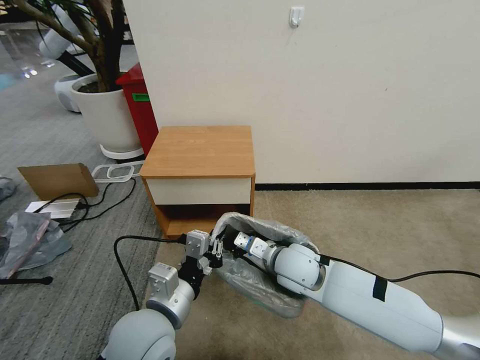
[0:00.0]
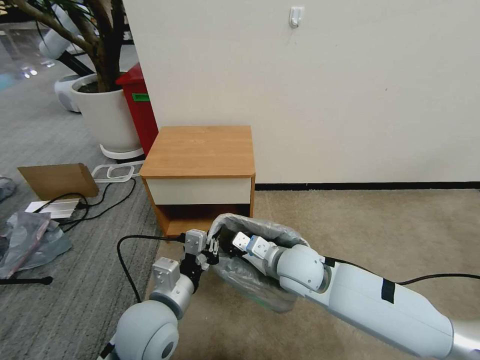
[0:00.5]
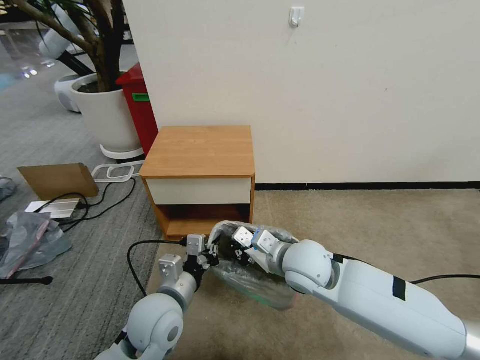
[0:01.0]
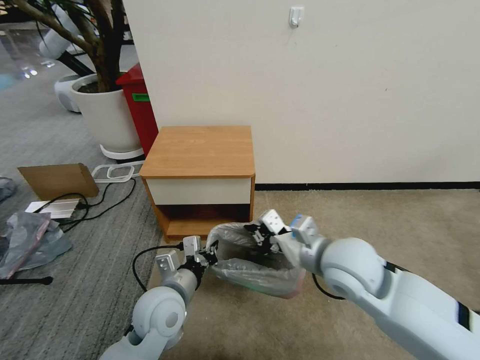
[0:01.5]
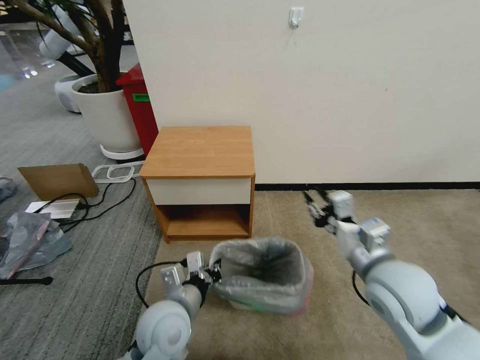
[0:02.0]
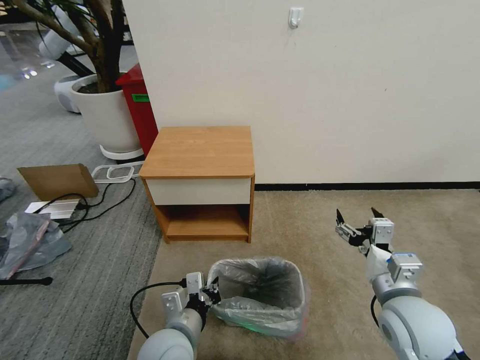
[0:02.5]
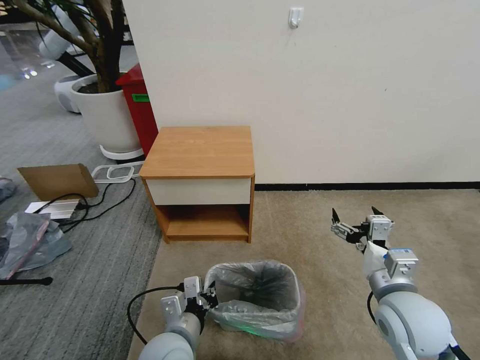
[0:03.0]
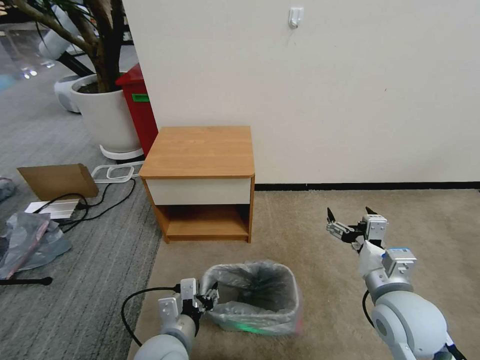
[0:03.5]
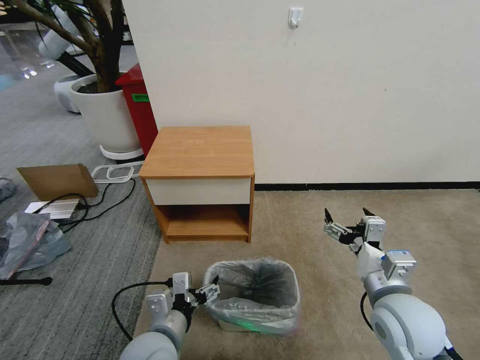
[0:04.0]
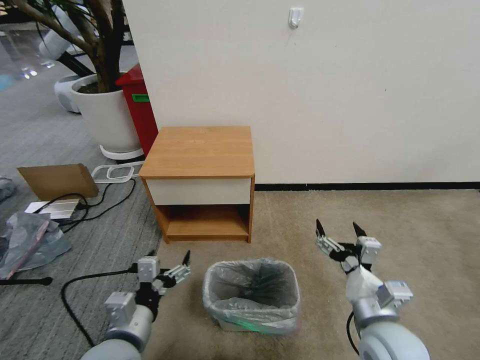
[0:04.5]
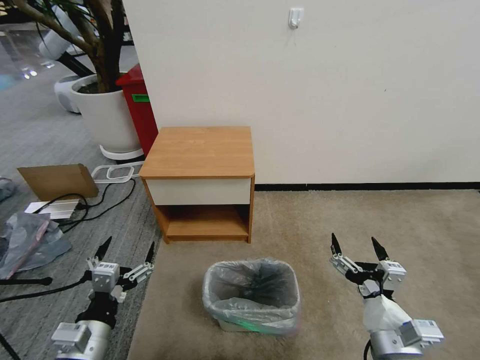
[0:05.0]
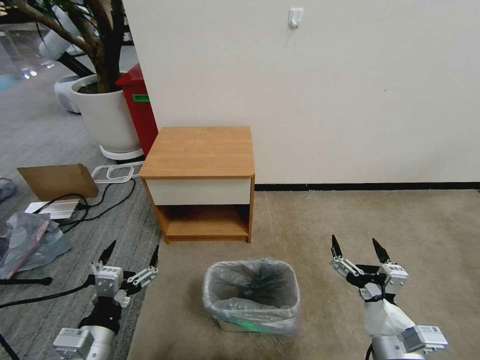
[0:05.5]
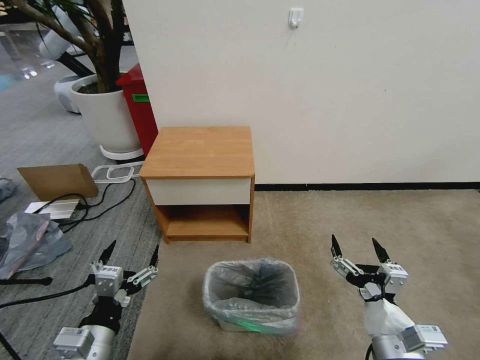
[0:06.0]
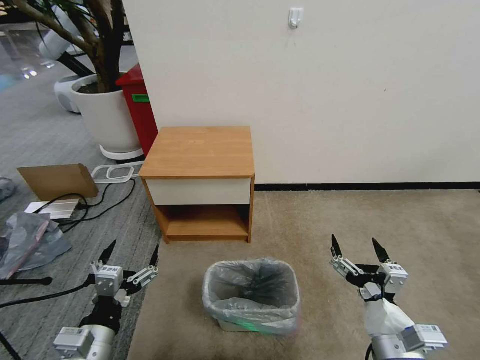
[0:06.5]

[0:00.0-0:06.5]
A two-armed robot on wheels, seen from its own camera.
Task of the whole recording: Pick up the garbage bag from the table and place it over the trash can.
0:00.0 to 0:02.0: The left gripper shifts about 5 cm downward. The right gripper shifts some 20 cm to the right, upward and backward.
0:02.0 to 0:04.5: The right gripper is displaced downward and backward by about 10 cm, and opens up. Meanwhile the left gripper heads to the left and backward, covering some 10 cm, and opens its fingers.
0:04.5 to 0:06.5: The left gripper shifts by about 5 cm. The right gripper moves backward, approximately 5 cm.
